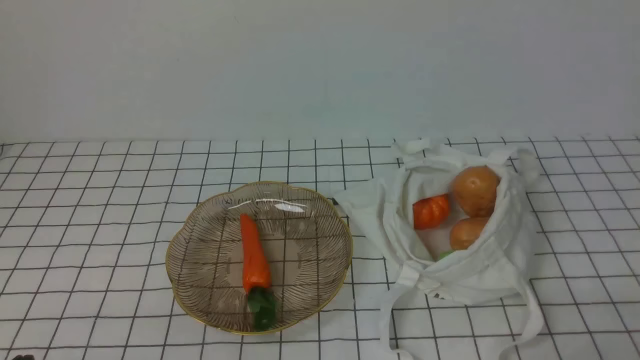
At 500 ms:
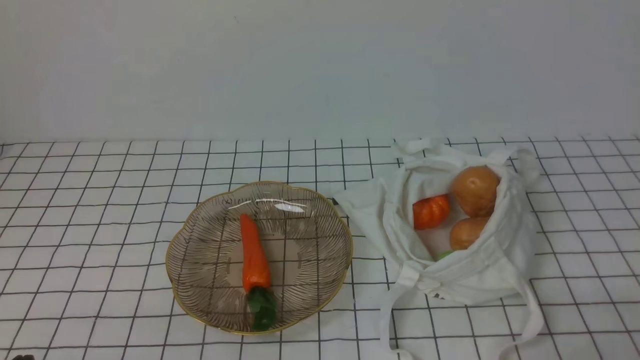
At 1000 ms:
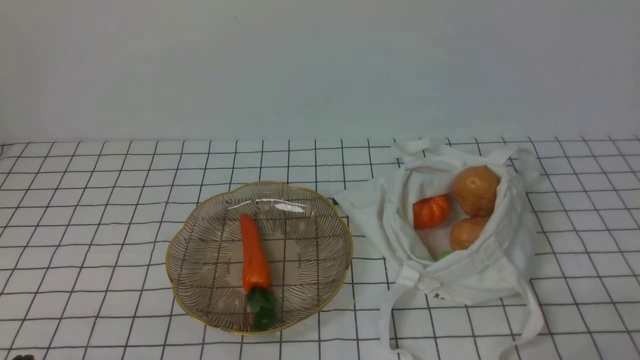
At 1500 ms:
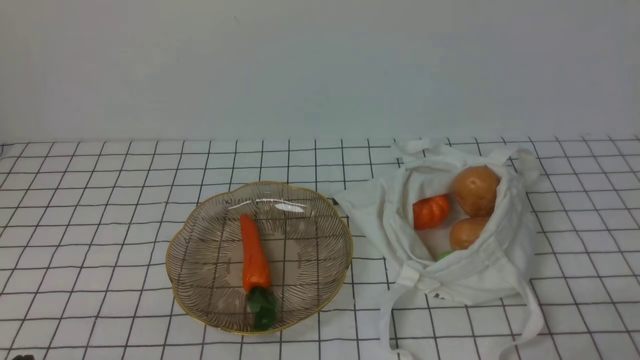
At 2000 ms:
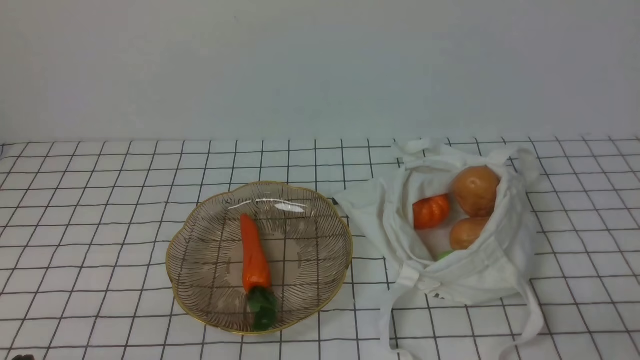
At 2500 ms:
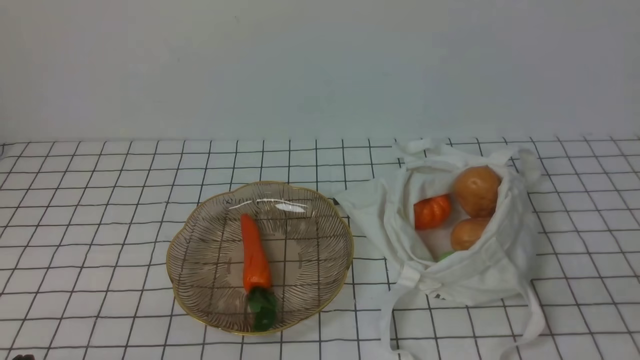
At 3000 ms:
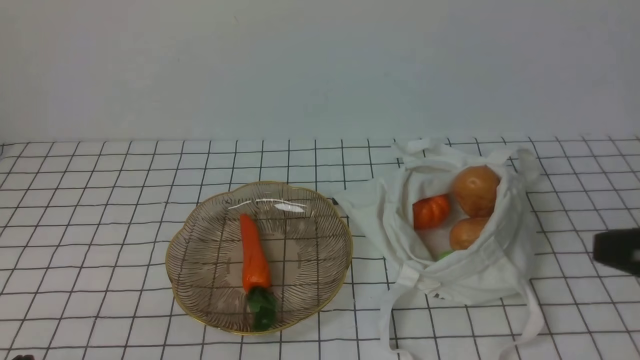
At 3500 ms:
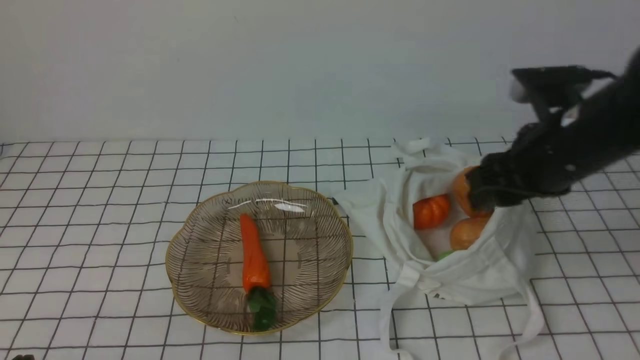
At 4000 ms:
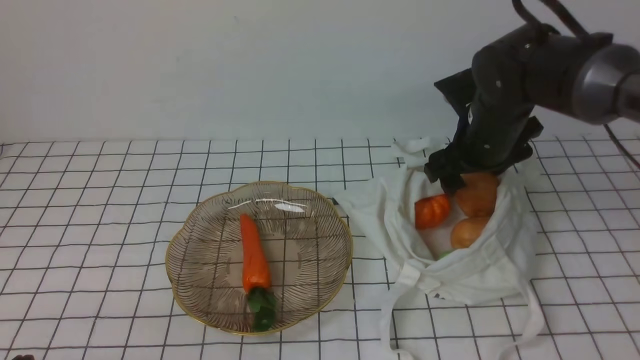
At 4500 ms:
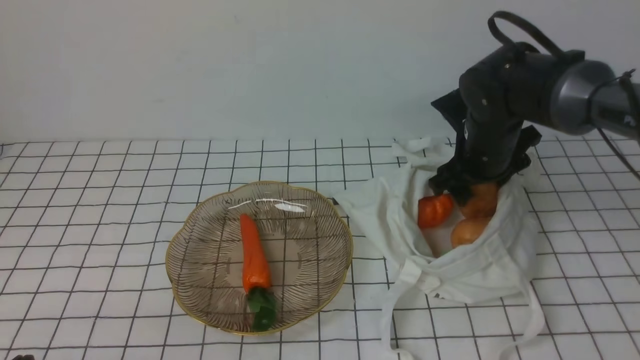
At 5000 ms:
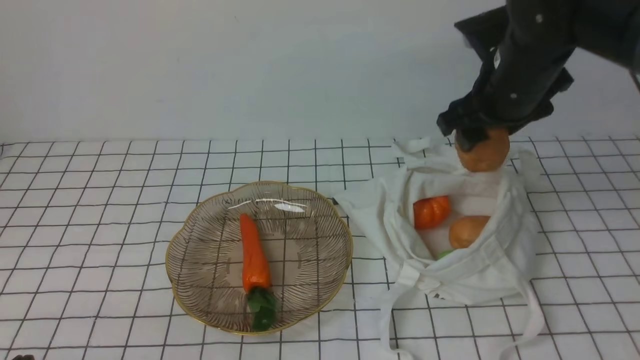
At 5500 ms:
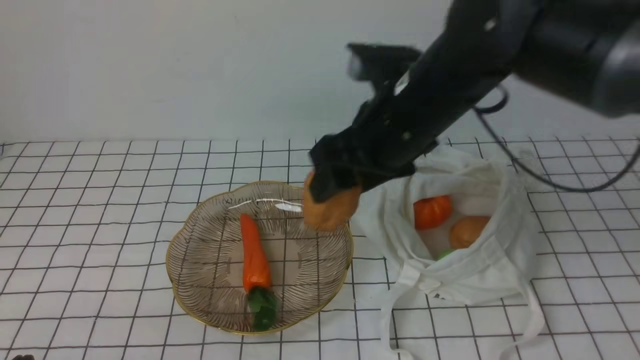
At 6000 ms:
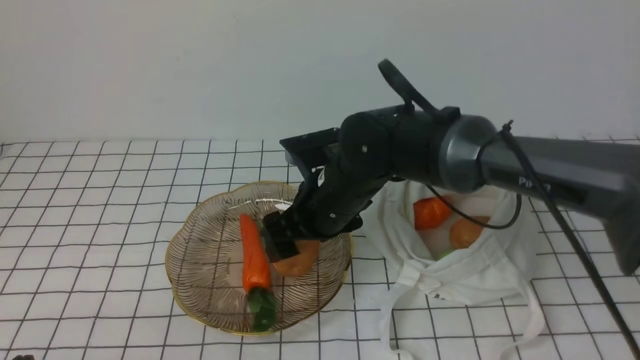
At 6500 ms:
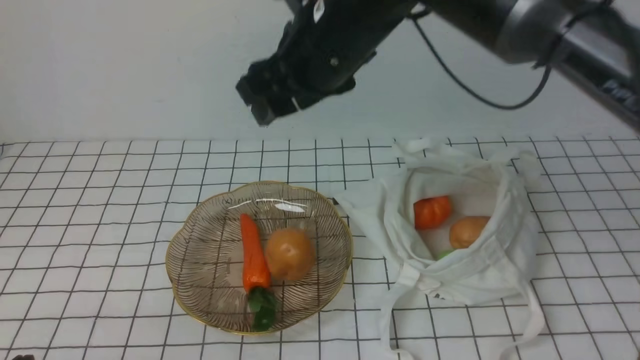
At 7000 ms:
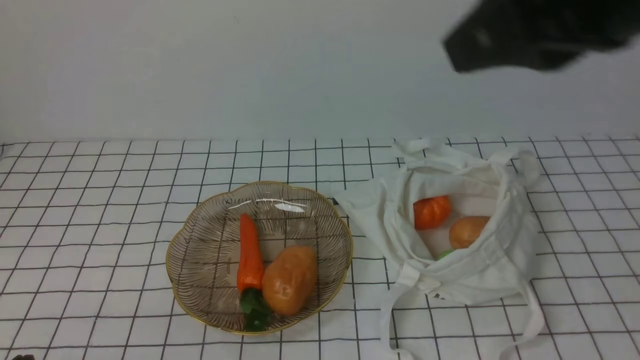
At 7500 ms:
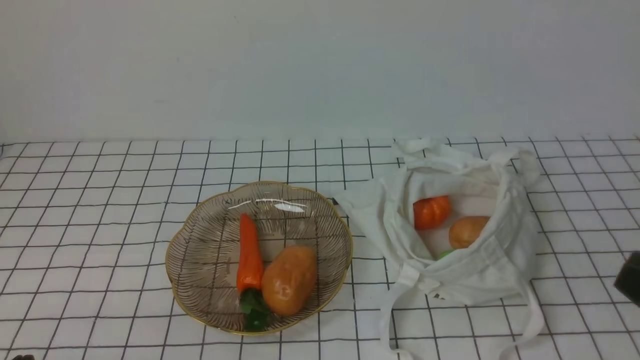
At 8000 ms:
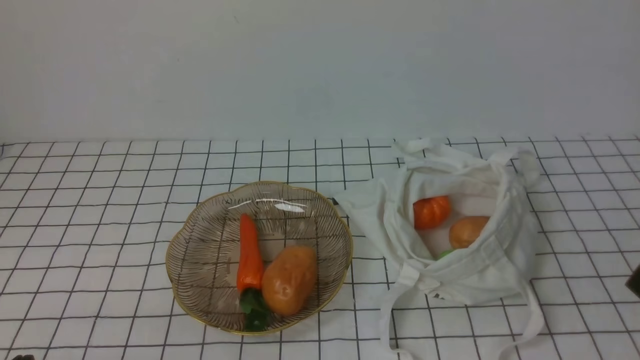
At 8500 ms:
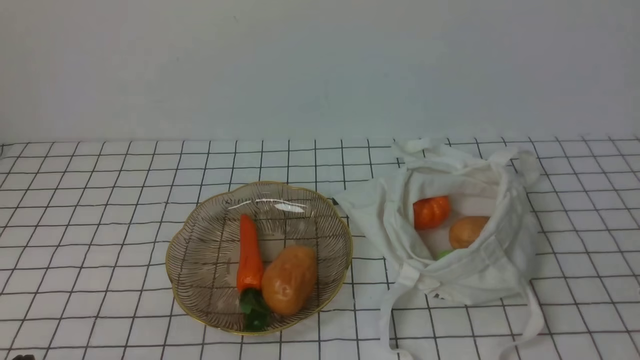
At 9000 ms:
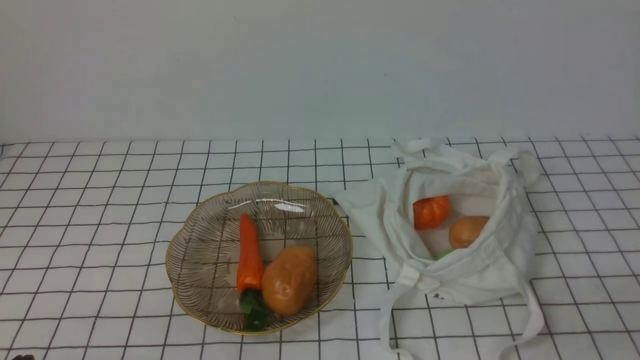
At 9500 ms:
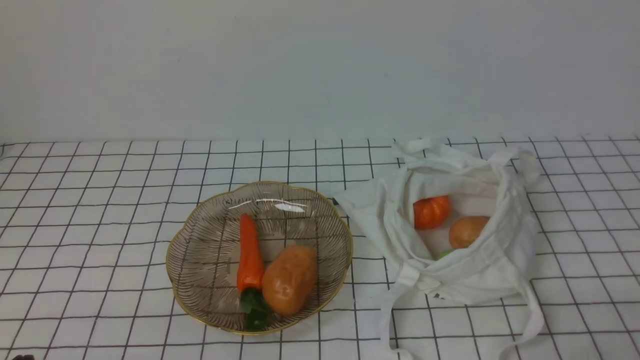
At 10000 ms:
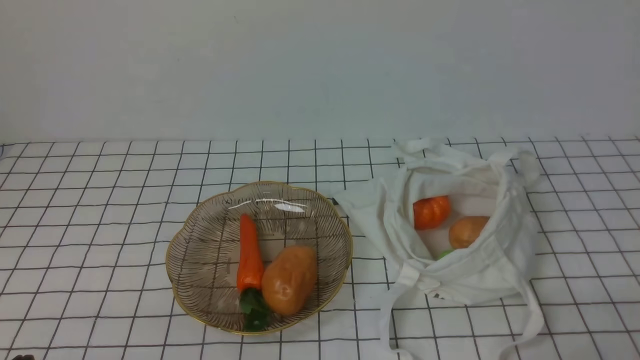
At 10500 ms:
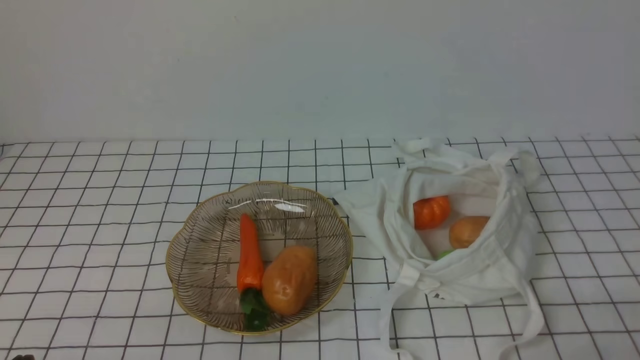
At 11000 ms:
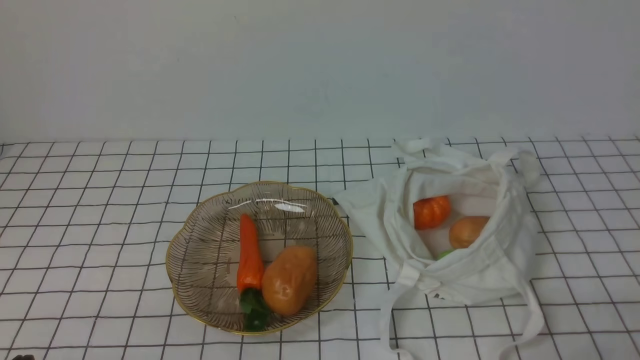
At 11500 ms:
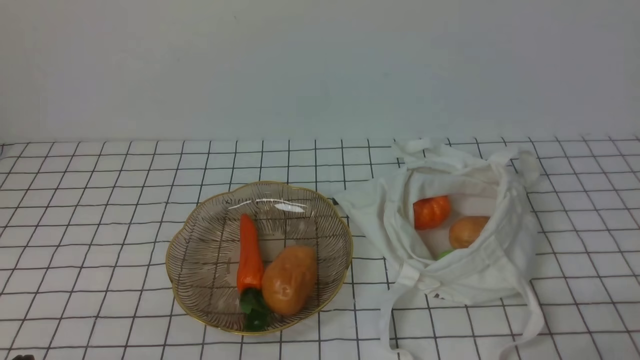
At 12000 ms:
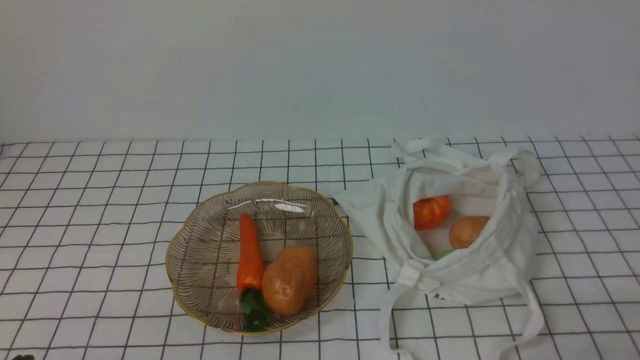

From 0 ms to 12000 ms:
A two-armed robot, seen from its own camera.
Task of the whole recording: take vegetables from bag on white checkered tablecloth place on plate.
Step, from 0 ms to 4500 ms: Grasp the potato with right gripper.
Step, from 5000 ms to 6000 ms: Place the potato on the plate with right gripper.
From 2000 ms to 4000 ms: The right gripper goes roughly 35 cm forward, and opens up.
From 4000 ms to 6000 ms: The right gripper goes roughly 15 cm to the left.
From 6000 ms to 8000 ms: The right gripper goes roughly 40 cm backward and to the right, and closes up.
From 10000 ms to 12000 ms: Both grippers stay put.

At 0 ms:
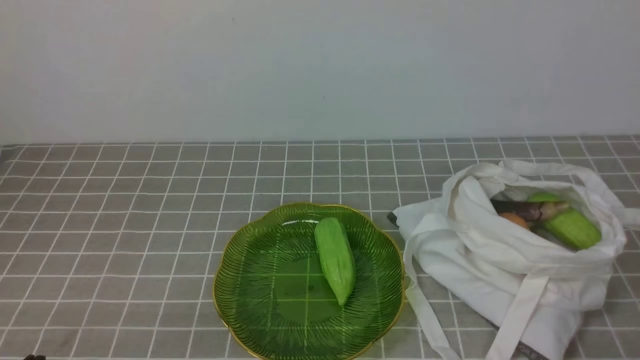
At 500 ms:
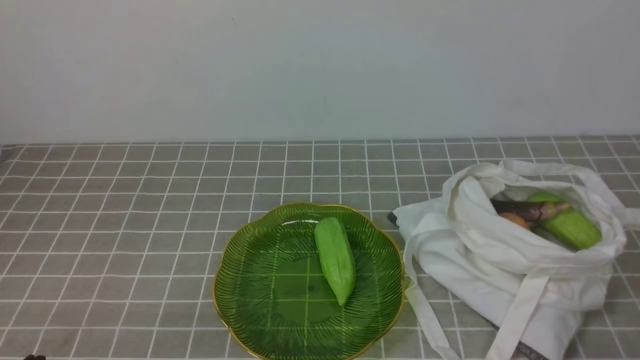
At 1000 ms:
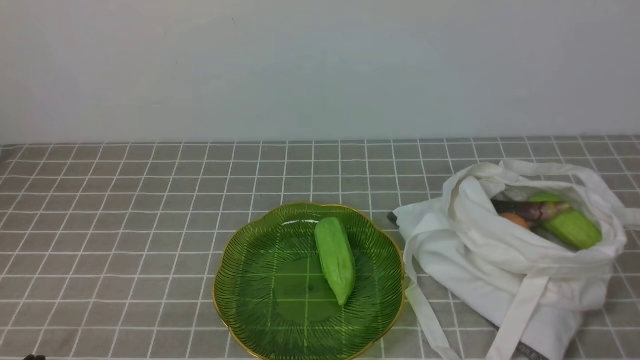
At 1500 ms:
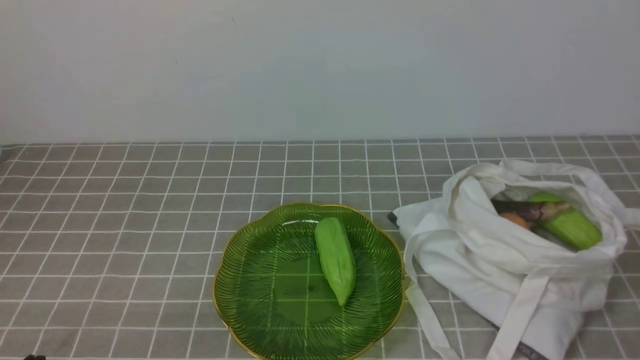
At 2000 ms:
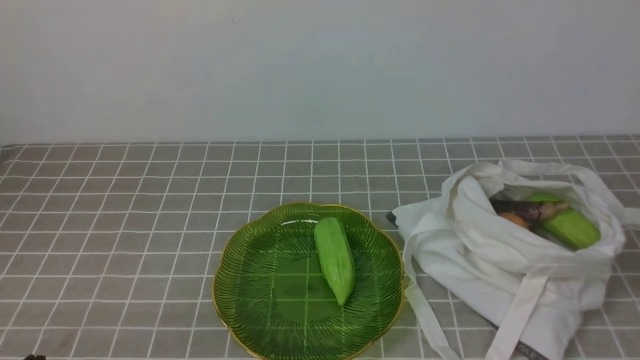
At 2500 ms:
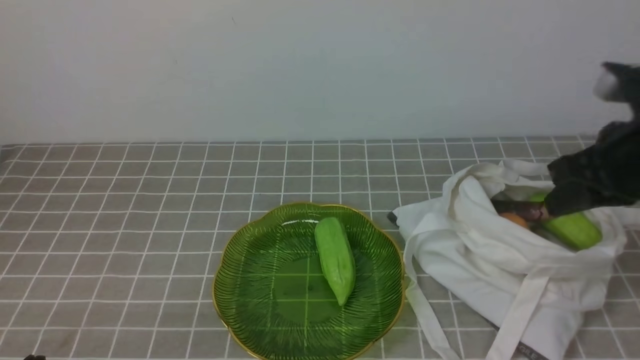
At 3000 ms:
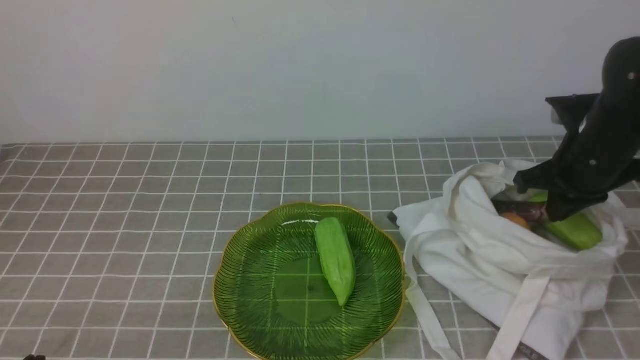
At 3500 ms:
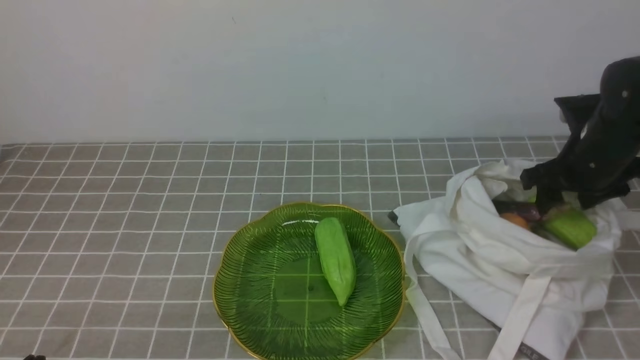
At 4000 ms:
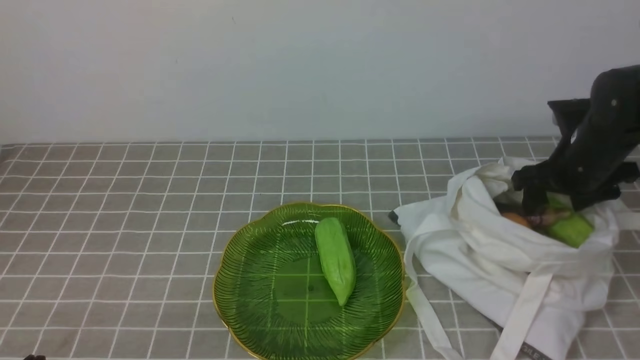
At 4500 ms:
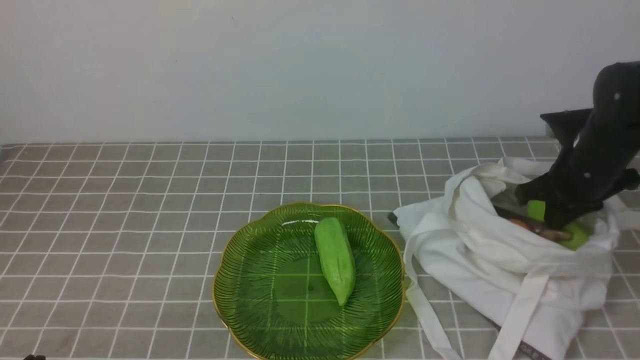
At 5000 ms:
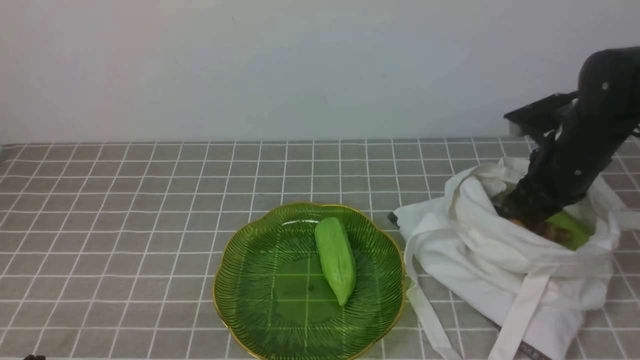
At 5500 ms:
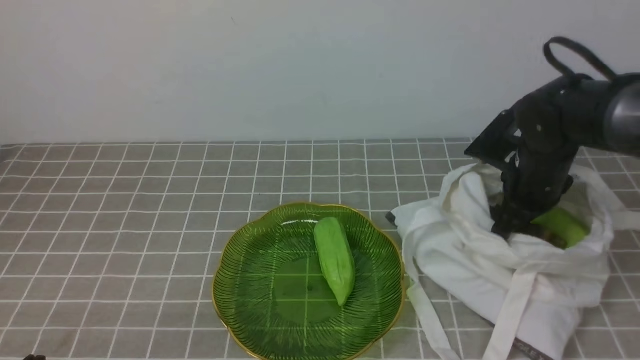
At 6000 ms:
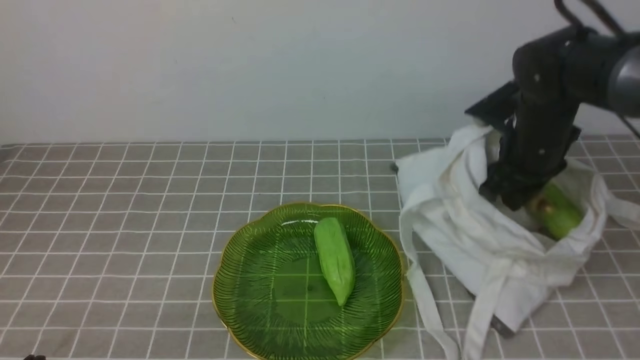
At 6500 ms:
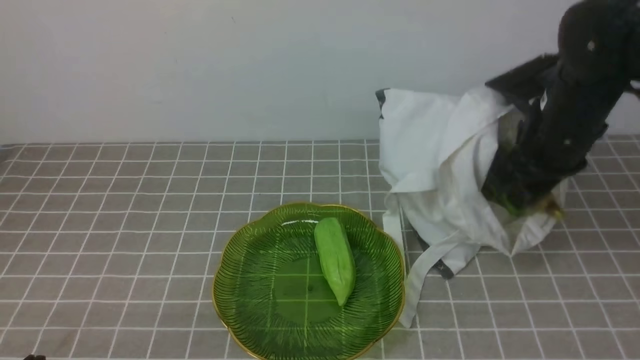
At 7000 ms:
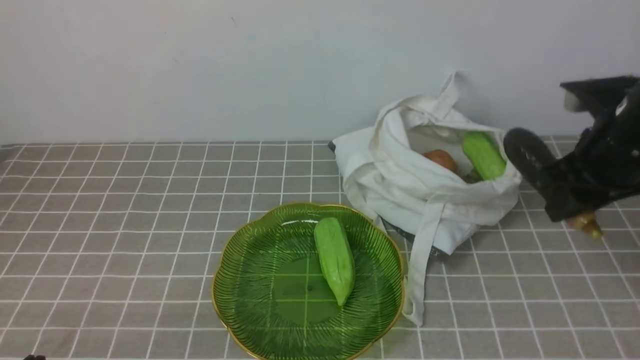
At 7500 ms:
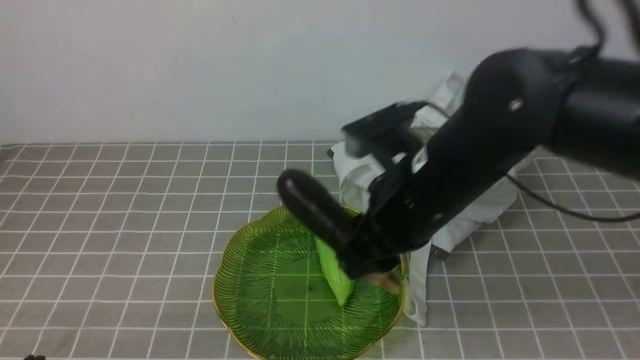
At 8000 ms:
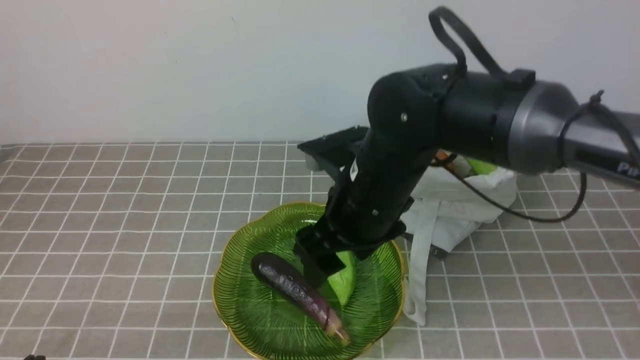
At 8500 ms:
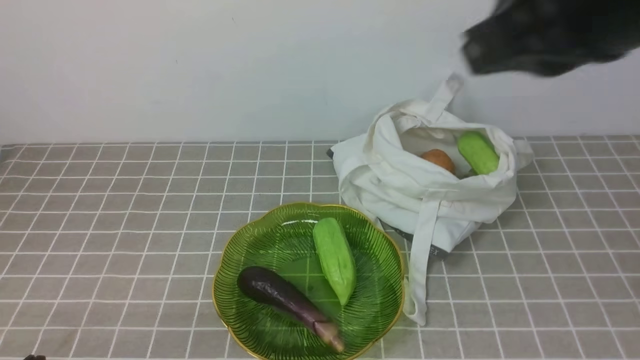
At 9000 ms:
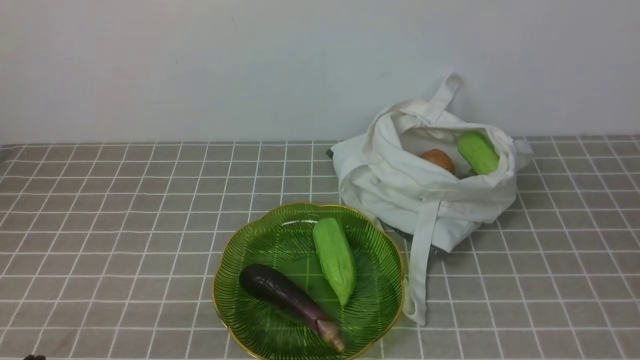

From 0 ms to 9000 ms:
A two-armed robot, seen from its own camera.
Task of the whole recording: take vegetables from bag on grey coffee tablecloth place on plate.
Step, from 0 ms to 5500 ms: Grasp the eggplant with right gripper.
Step, from 6000 ms to 8000 ms: Place the eggplant on the plate with right gripper.
From 2000 ms to 4500 ms: The right gripper moves forward and downward, about 30 cm, and opens and closes again.
From 4500 ms to 7000 ms: The right gripper moves upward and backward, approximately 10 cm, and opens, then closes once more.
From 7000 ms to 9000 ms: The right gripper moves backward, roughly 30 cm, and closes its fingers.
